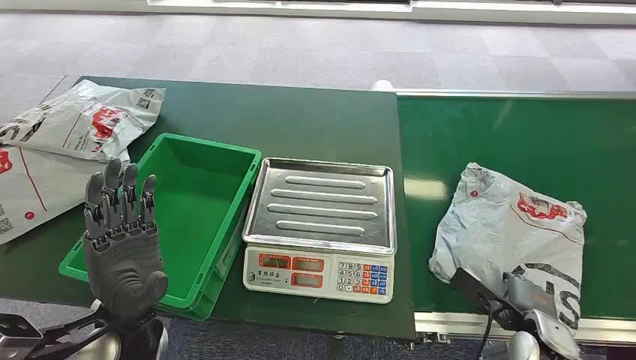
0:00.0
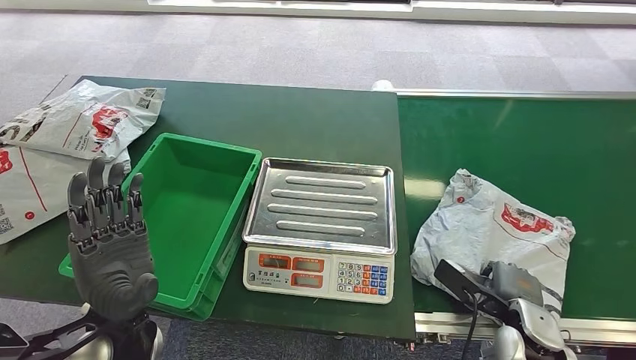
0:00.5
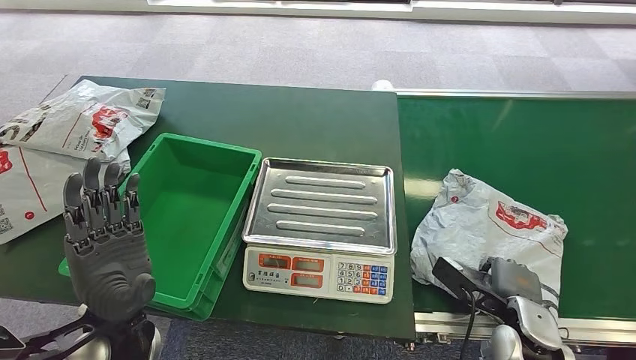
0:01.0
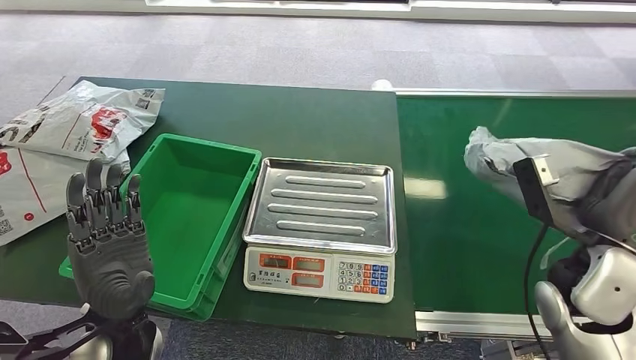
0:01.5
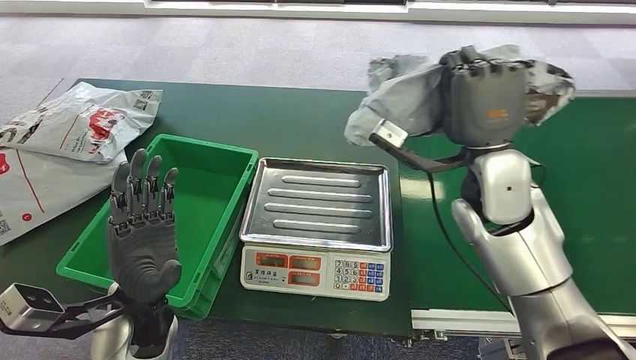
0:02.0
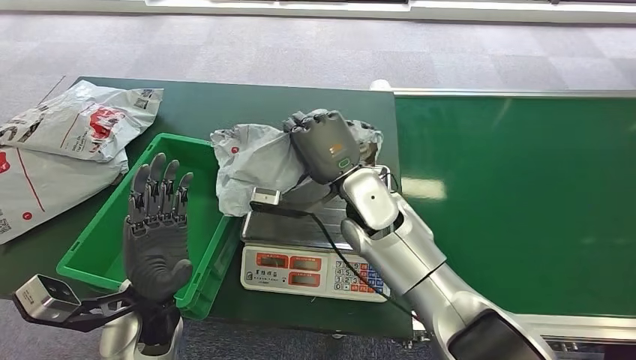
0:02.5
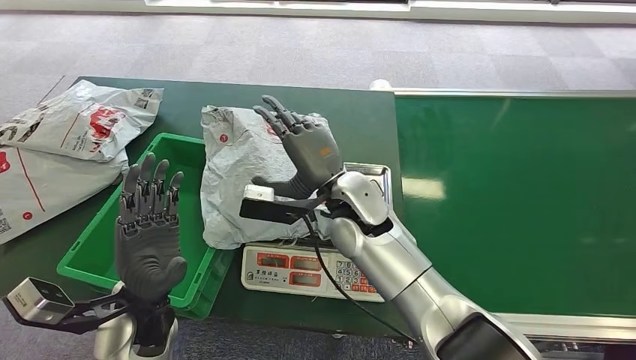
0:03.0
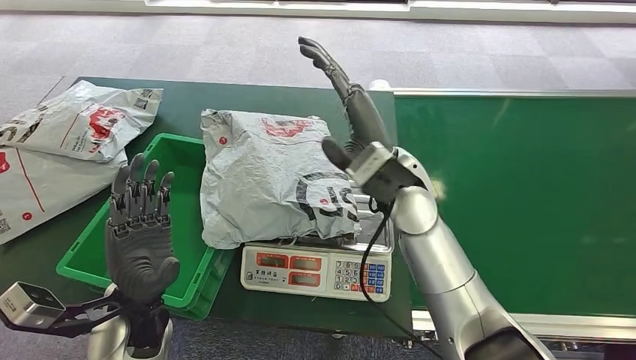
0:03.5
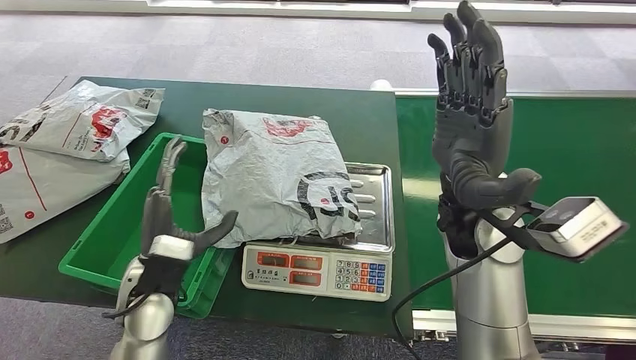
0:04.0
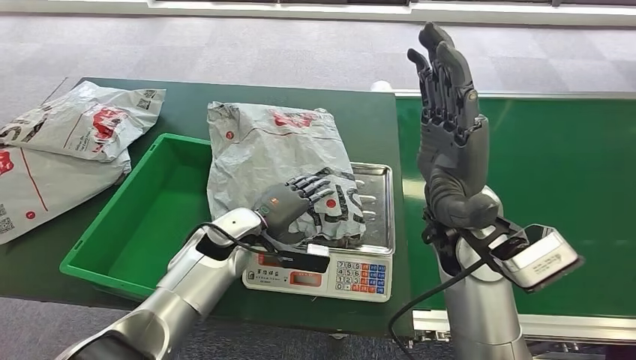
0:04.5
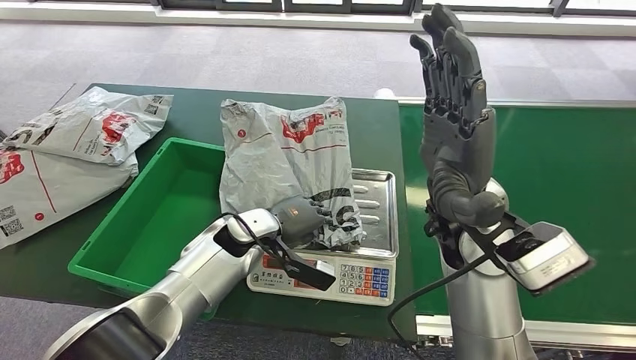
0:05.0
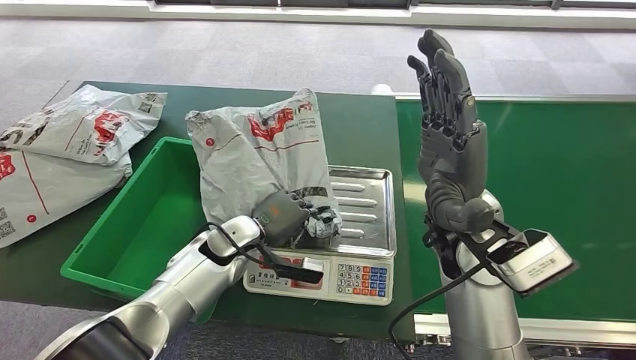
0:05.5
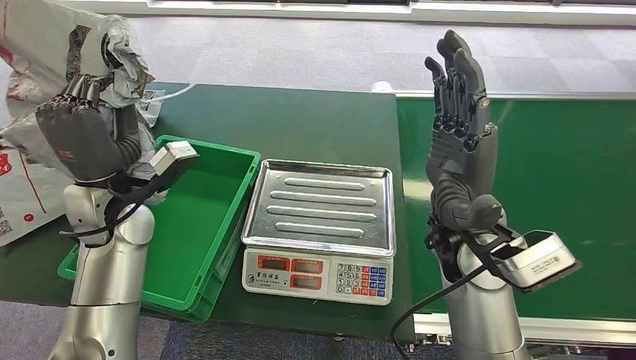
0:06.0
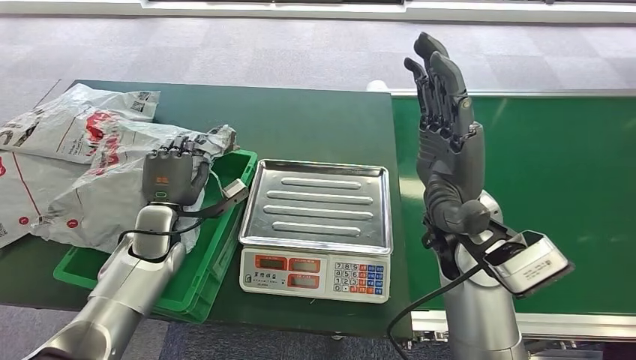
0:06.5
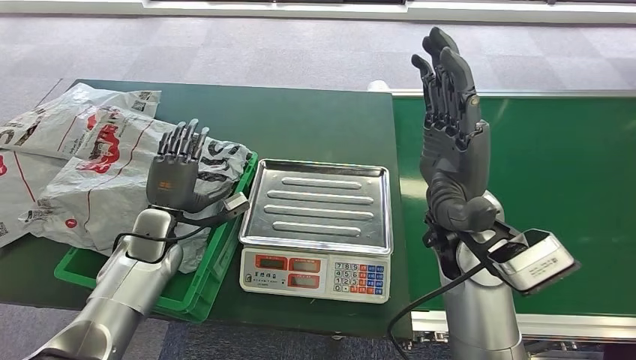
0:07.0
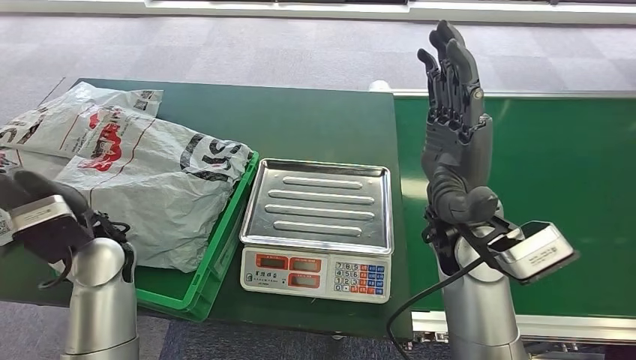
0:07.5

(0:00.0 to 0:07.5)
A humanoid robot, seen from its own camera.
Step, 0:00.0 - 0:01.5: Pick up the package from the conveyor belt.
Step, 0:02.0 - 0:03.5: Place the package onto the inbound machine.
Step, 0:04.0 - 0:06.0: Pick up the package from the inbound machine.
Step, 0:06.5 - 0:07.5: Place the package into the parcel locker.
